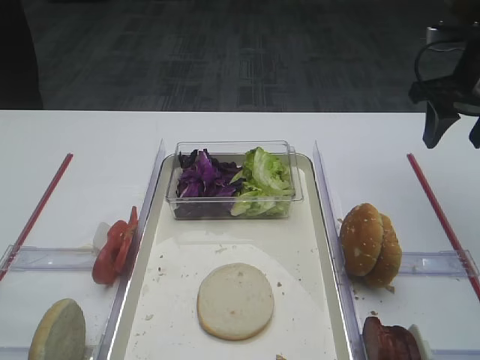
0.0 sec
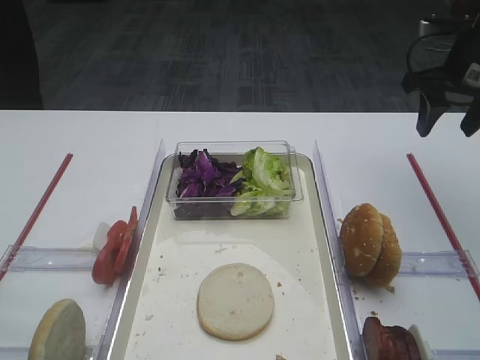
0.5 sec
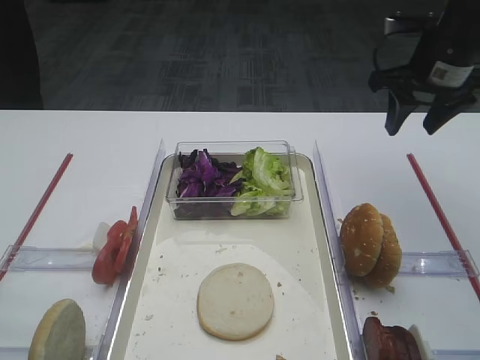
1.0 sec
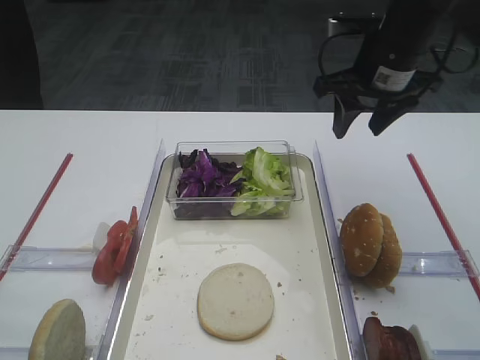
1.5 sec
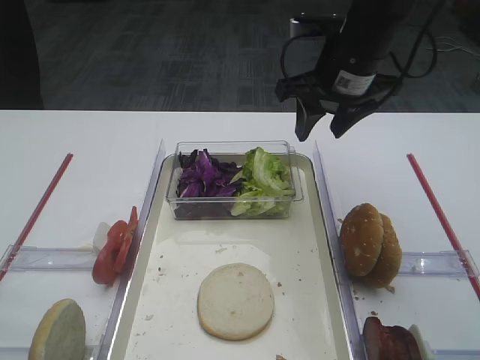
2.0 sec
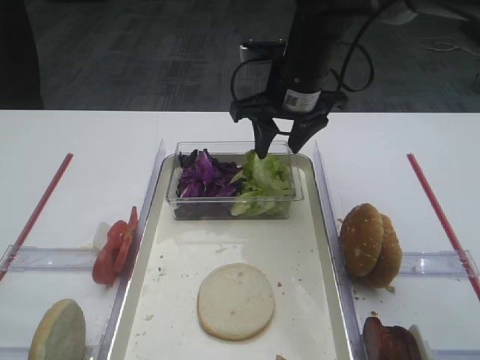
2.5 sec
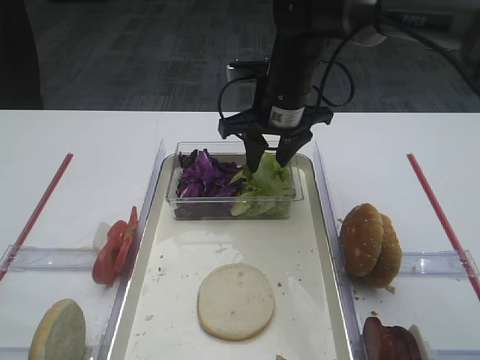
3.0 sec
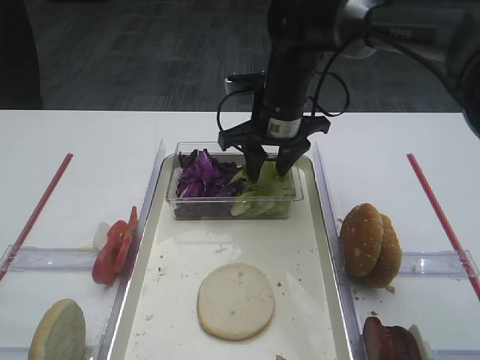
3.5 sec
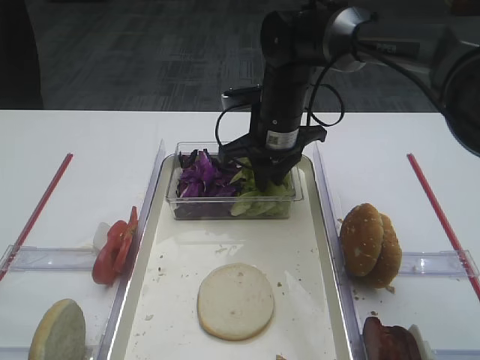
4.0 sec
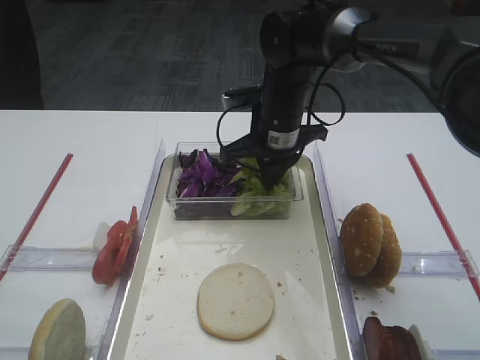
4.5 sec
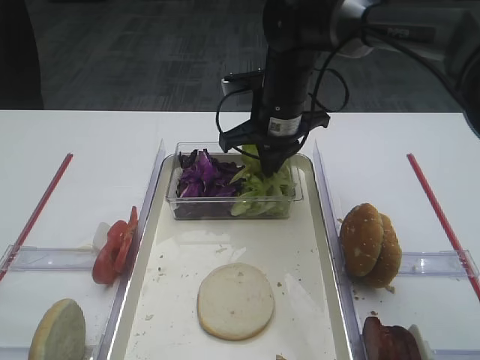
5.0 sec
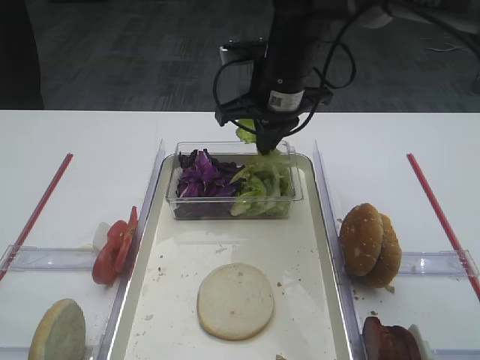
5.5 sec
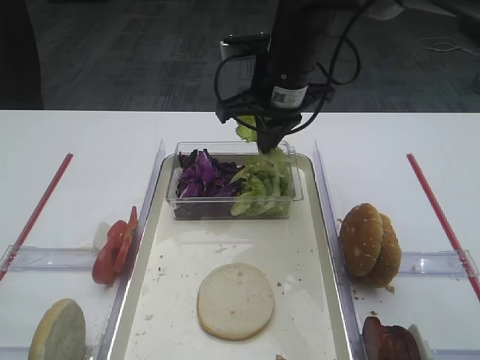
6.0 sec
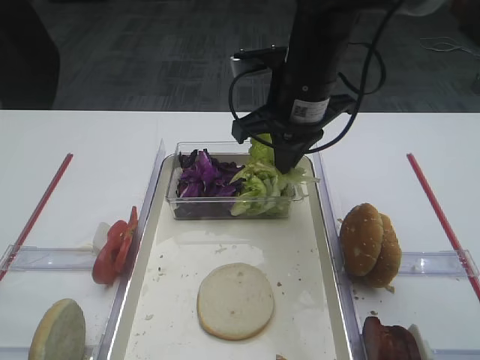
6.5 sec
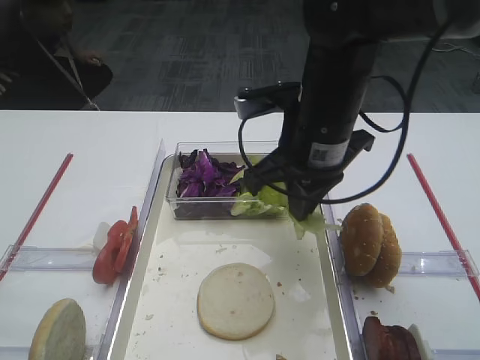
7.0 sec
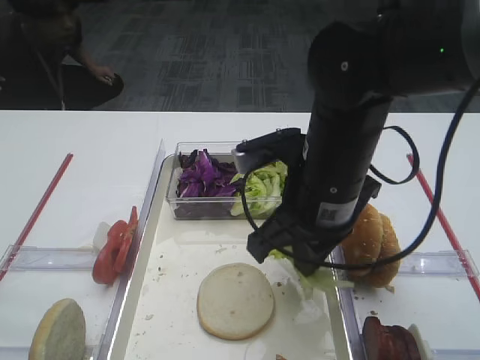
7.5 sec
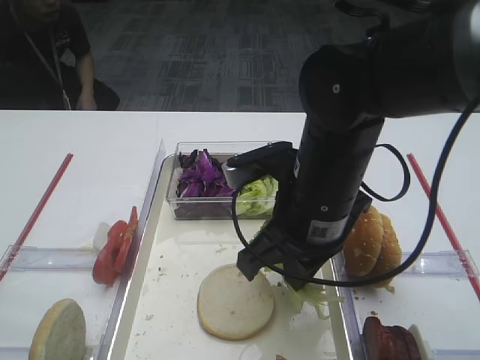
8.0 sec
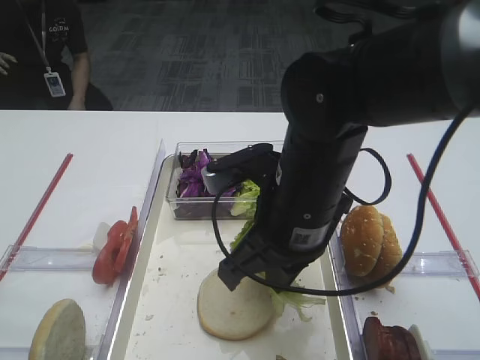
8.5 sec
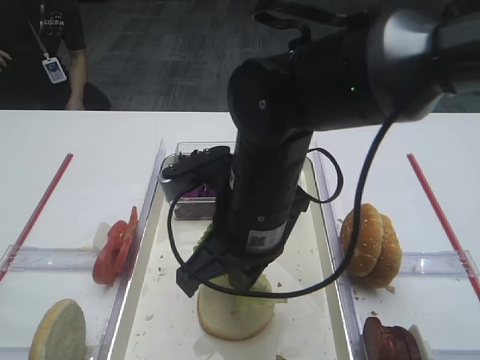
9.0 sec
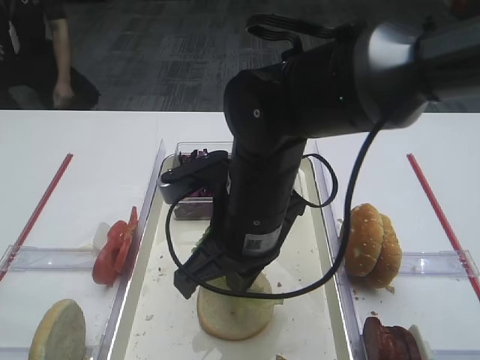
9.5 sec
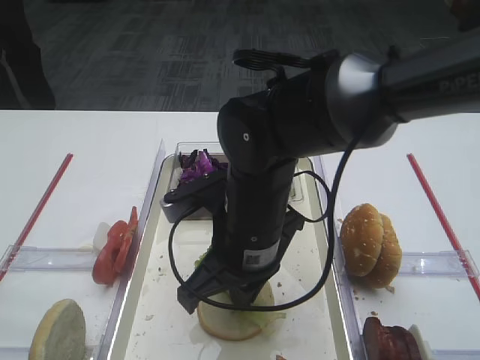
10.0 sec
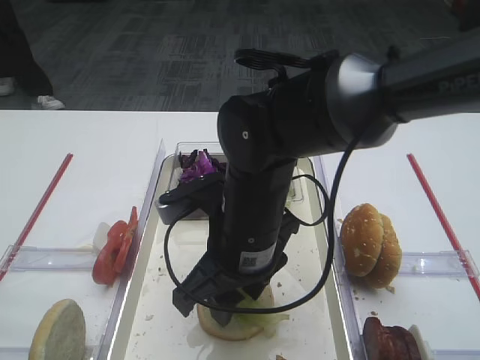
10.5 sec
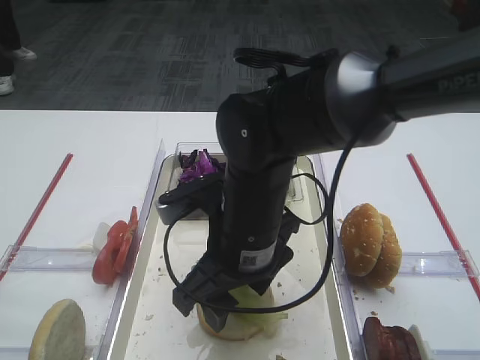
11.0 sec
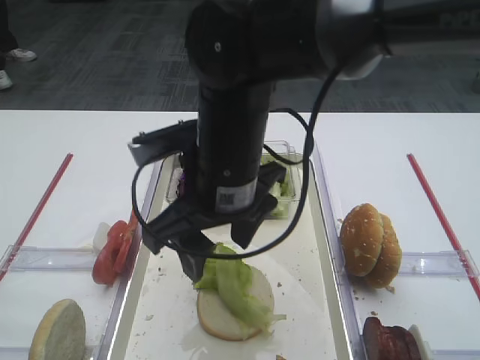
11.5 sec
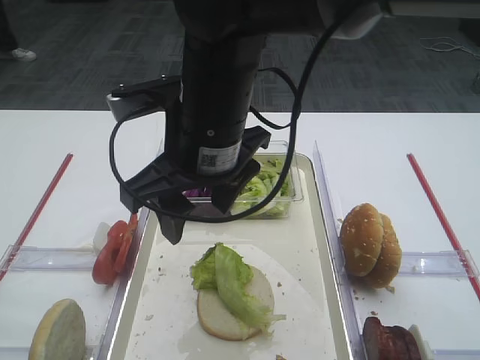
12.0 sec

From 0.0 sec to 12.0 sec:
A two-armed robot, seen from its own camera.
Step, from 0.0 sec to 6.0 sec: Pick up the lettuce leaf with the right gripper.
Step, from 6.5 sec to 11.5 sec: Place the lettuce leaf on the bread slice with the right gripper.
From 0.0 sec to 2.0 sec: The right gripper is displaced to the left by about 15 cm.
From 2.0 sec to 4.0 sec: The right gripper shifts about 10 cm downward and to the left, and closes up.
From 4.0 sec to 6.0 sec: The right gripper is displaced upward by approximately 5 cm.
From 6.0 sec to 8.0 sec: The right gripper moves backward, some 15 cm.
From 8.0 sec to 10.0 sec: The right gripper goes roughly 5 cm to the left.
From 10.0 sec to 12.0 sec: The right gripper travels upward by approximately 10 cm, and opens.

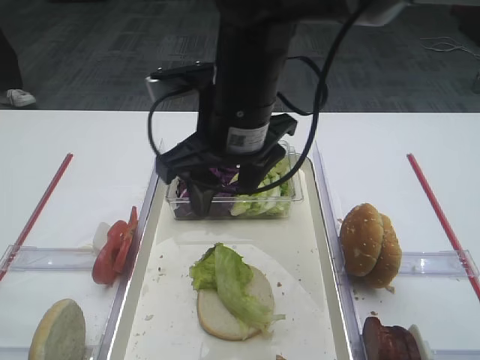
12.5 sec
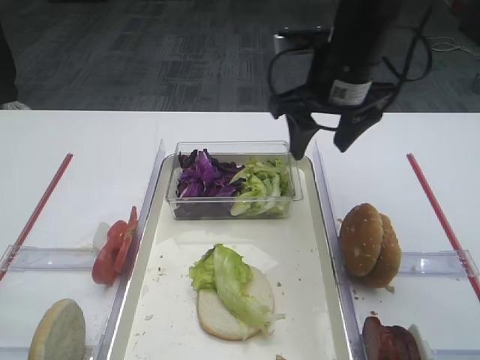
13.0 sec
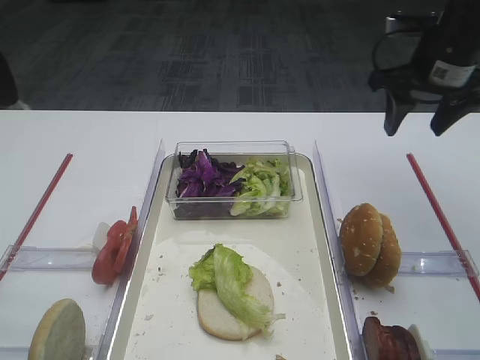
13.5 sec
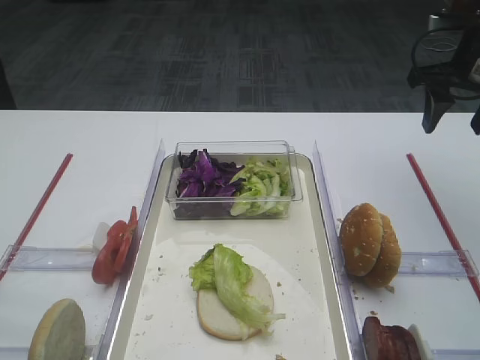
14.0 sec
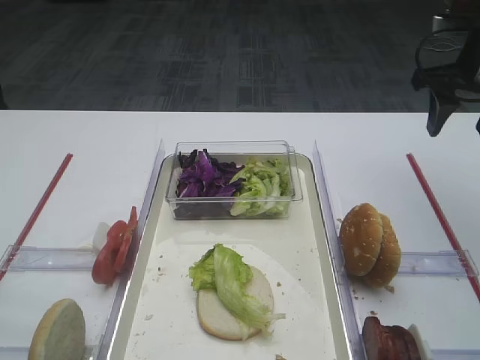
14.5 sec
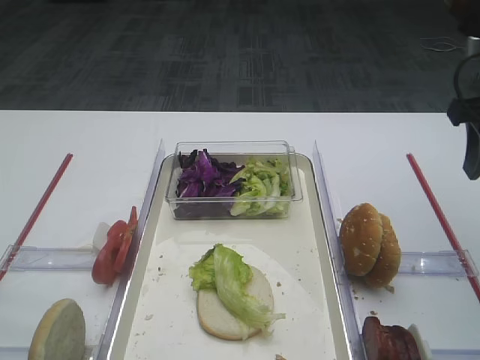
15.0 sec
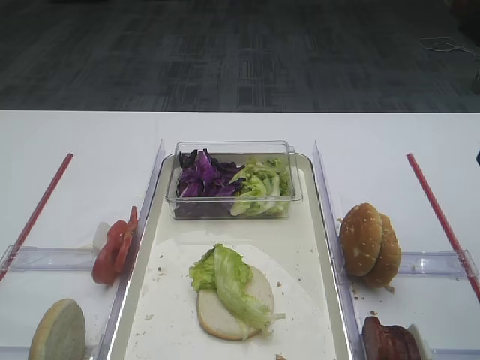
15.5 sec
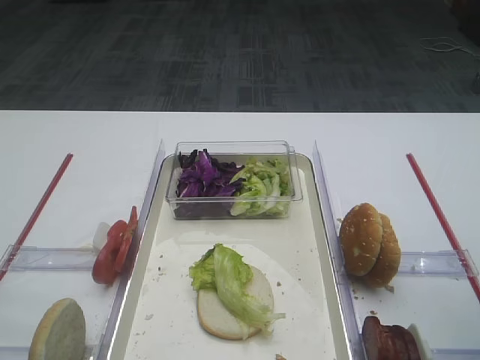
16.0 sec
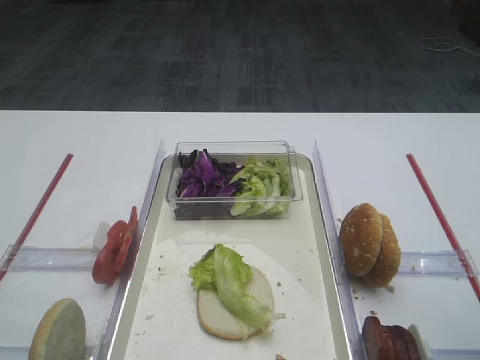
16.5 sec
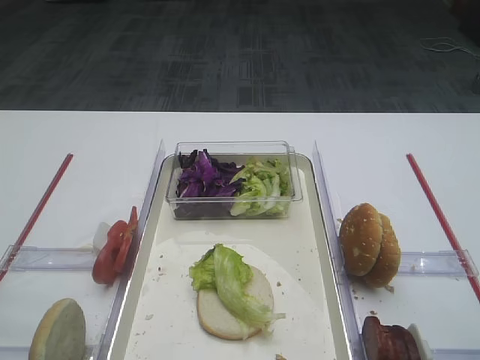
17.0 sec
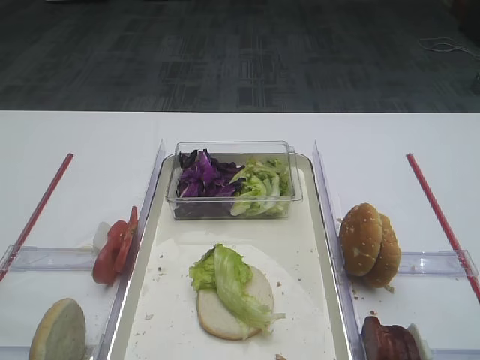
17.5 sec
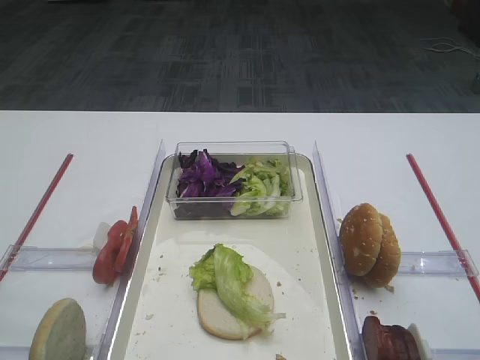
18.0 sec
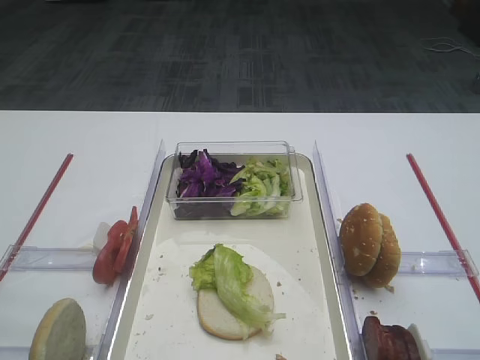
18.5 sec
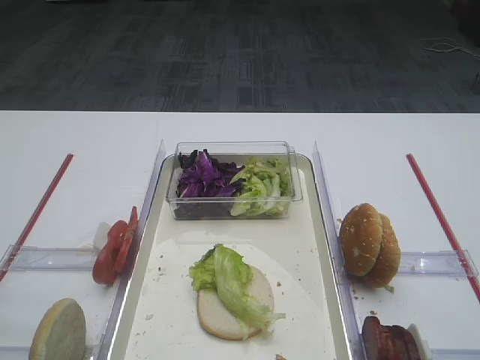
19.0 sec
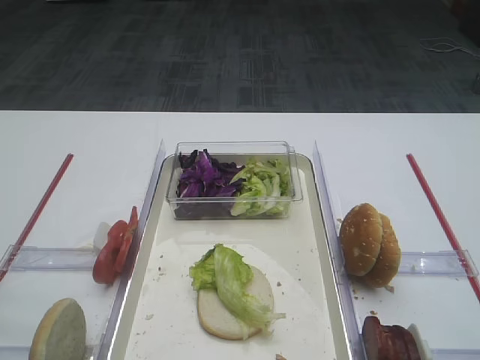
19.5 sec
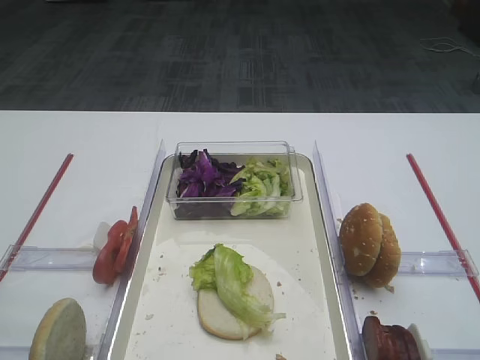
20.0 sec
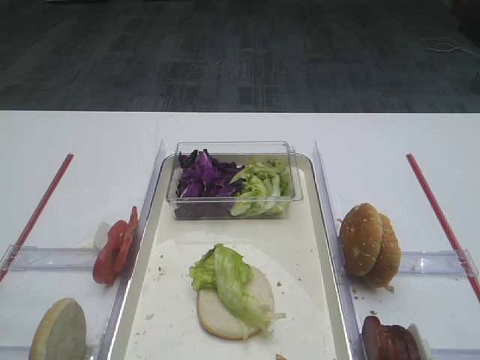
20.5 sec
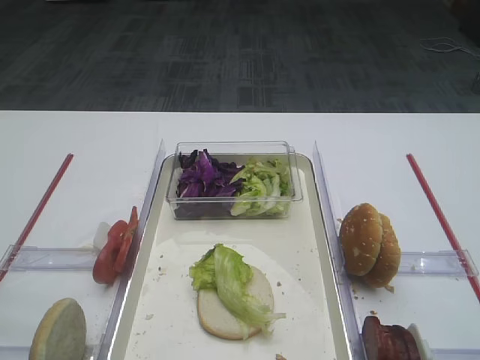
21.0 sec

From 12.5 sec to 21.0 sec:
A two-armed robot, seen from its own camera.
From 12.5 sec to 14.5 sec: The right gripper is displaced to the right by roughly 30 cm.
From 14.5 sec to 16.5 sec: The right gripper shifts about 25 cm backward.
From 19.0 sec to 21.0 sec: Both grippers stay put.

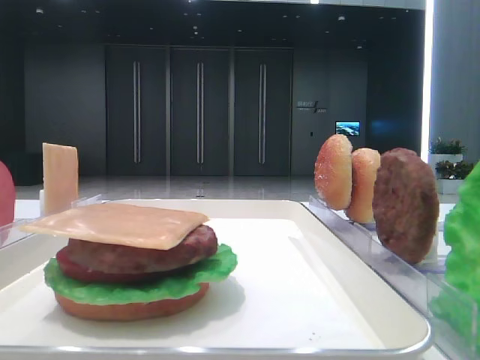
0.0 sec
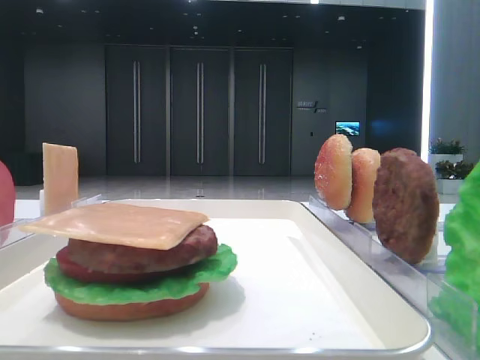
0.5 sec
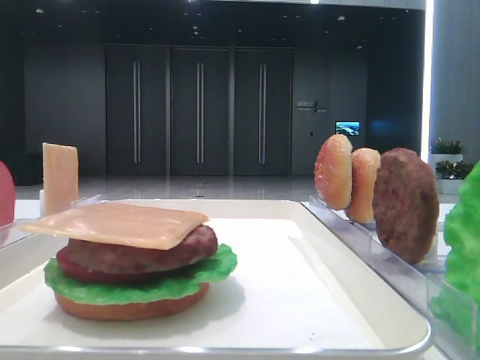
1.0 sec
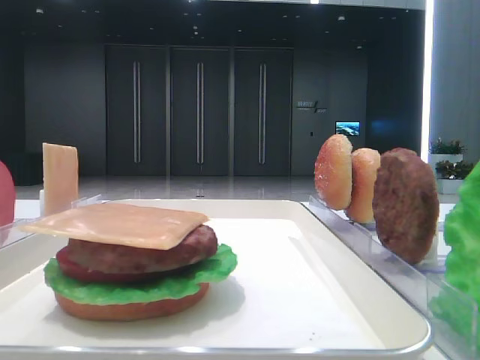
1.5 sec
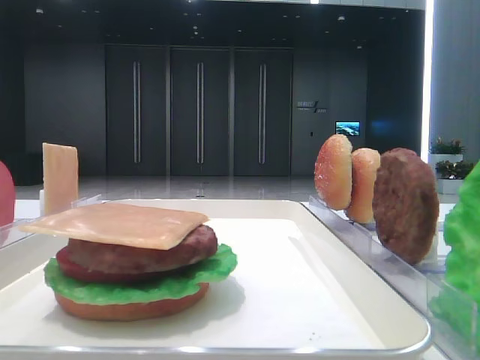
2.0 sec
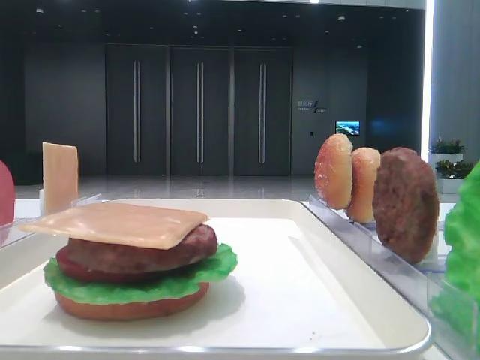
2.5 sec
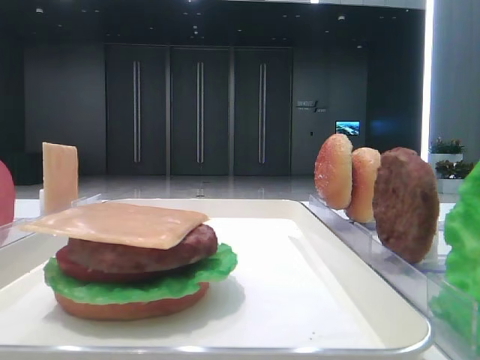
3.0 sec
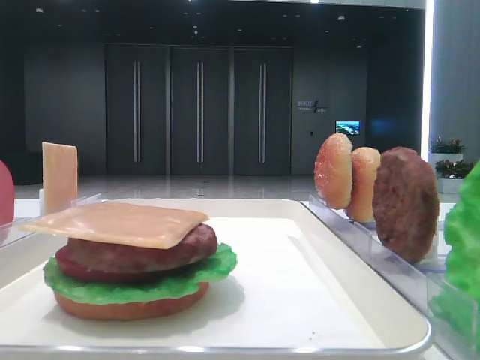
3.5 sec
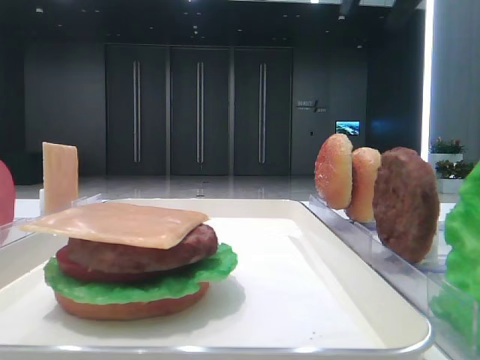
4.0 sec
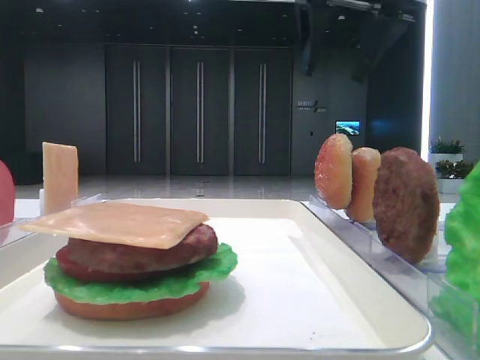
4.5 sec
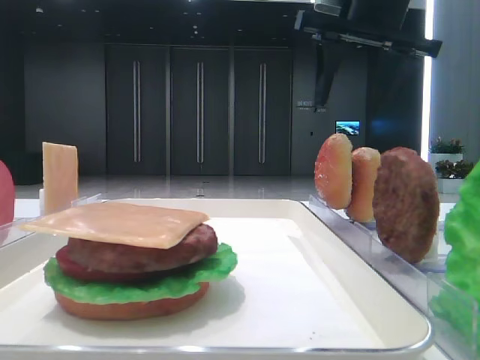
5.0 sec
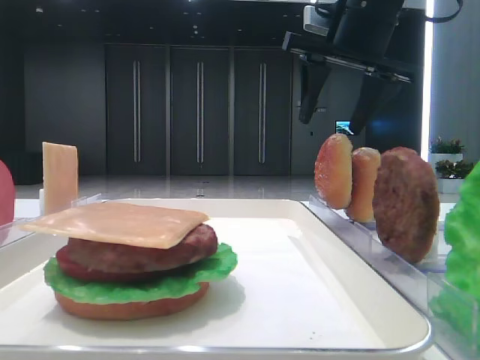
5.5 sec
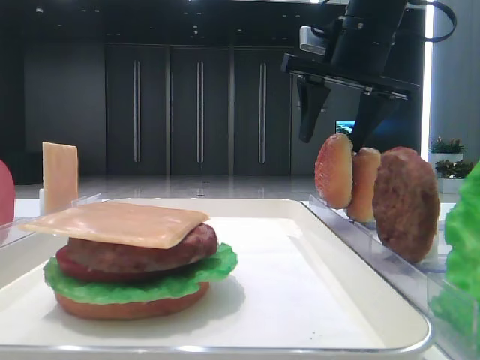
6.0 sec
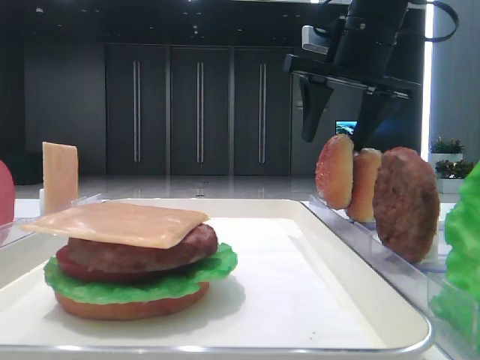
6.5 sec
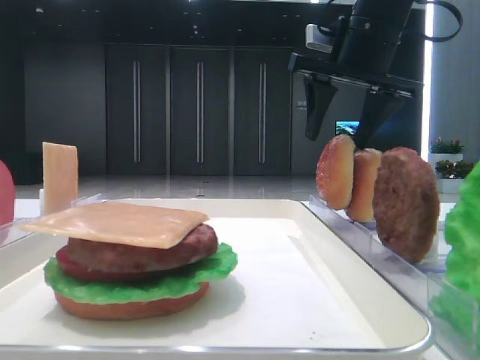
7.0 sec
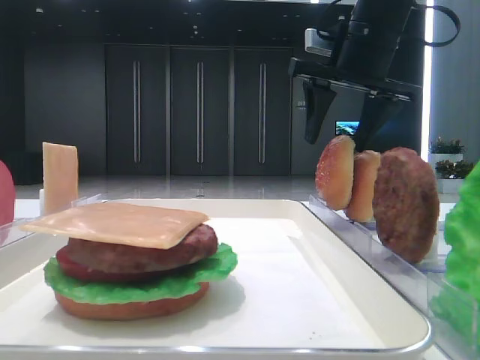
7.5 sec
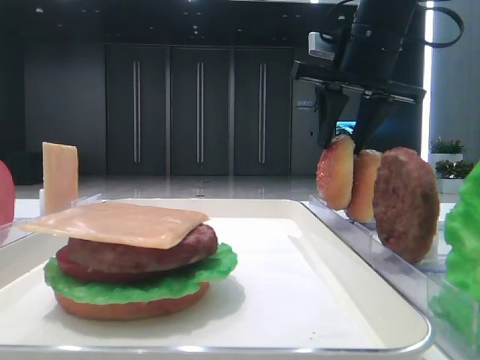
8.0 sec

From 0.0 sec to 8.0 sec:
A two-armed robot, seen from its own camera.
From 2.0 sec to 4.0 sec: The right gripper goes about 30 cm forward.
From 4.0 sec to 6.0 sec: The right gripper heads downward and forward, covering some 15 cm.
From 6.0 sec to 8.0 sec: The right gripper closes.
